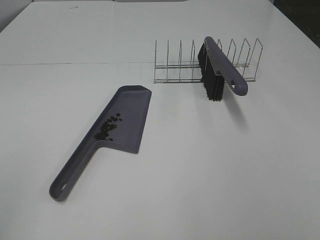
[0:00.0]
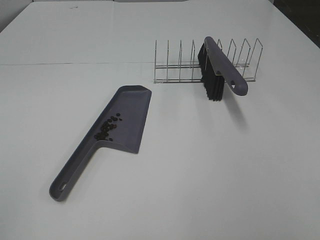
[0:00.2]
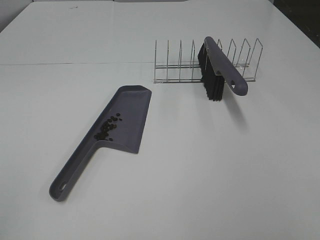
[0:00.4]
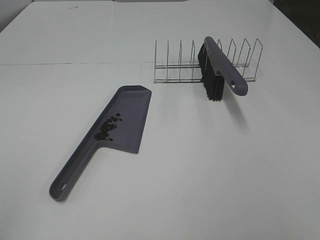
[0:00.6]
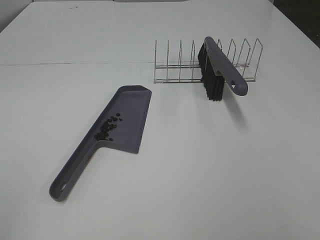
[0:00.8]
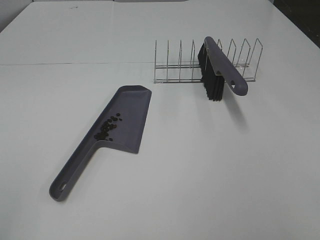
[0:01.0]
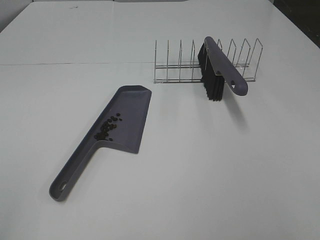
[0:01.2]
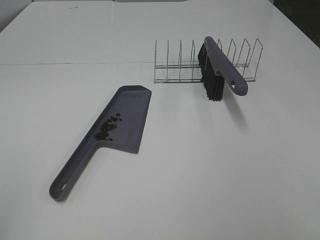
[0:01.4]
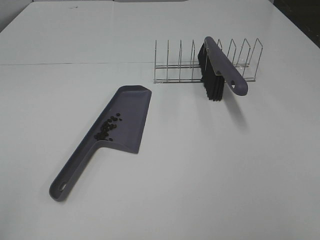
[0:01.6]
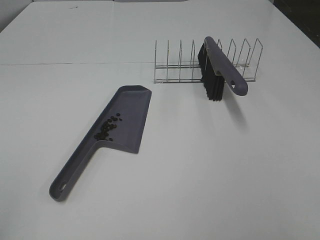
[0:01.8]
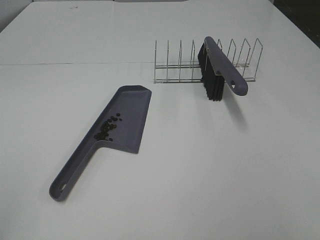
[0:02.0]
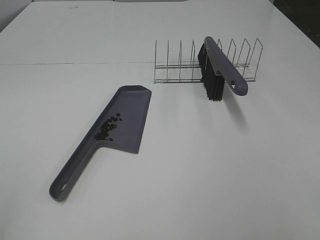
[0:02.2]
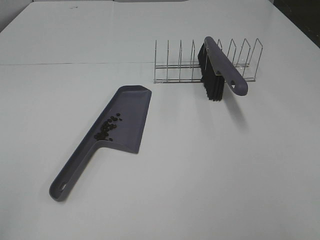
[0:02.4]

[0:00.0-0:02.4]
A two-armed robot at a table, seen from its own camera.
Task of the whole recording: Sweep Coffee Bean.
0:01.2 to 0:02.4: Neither gripper changes place.

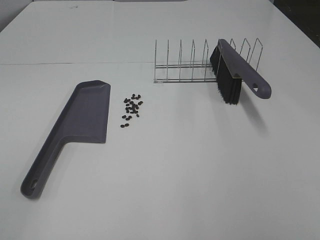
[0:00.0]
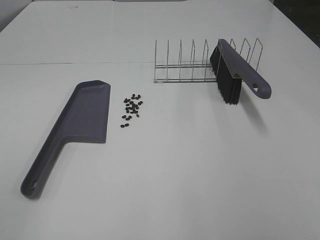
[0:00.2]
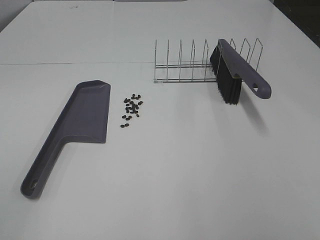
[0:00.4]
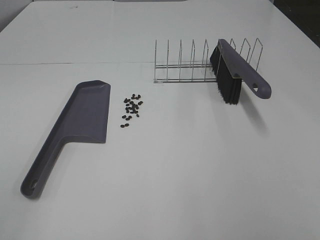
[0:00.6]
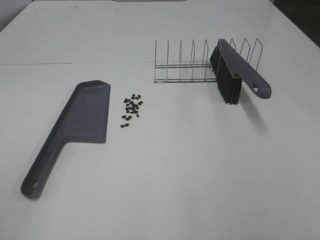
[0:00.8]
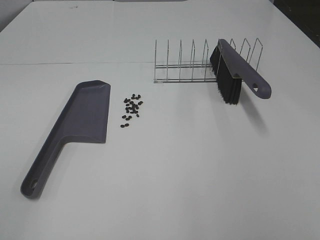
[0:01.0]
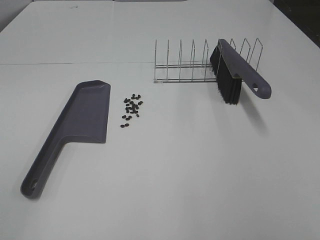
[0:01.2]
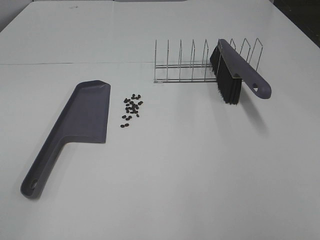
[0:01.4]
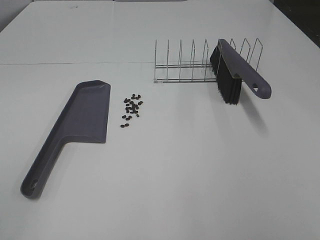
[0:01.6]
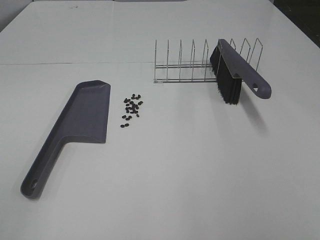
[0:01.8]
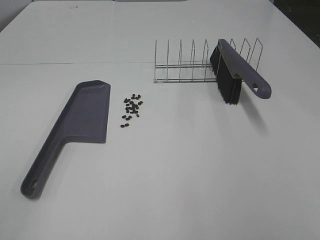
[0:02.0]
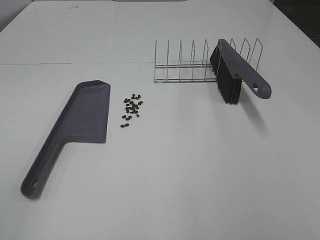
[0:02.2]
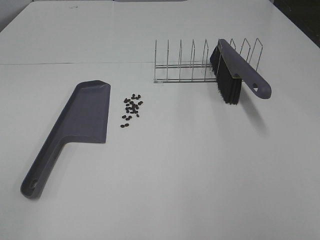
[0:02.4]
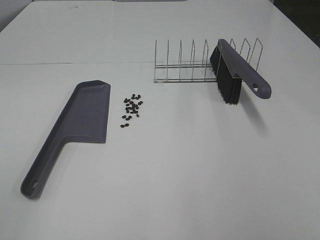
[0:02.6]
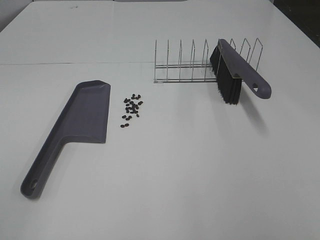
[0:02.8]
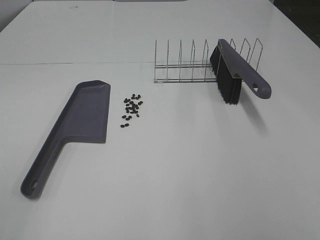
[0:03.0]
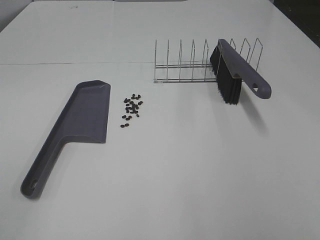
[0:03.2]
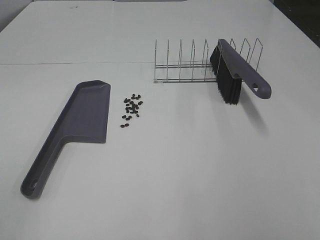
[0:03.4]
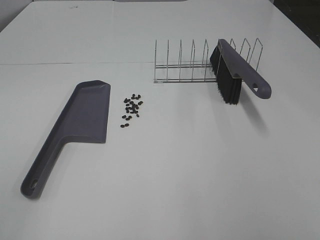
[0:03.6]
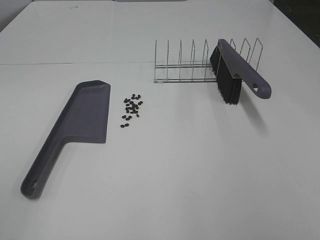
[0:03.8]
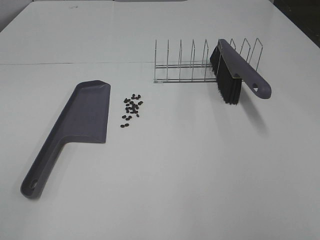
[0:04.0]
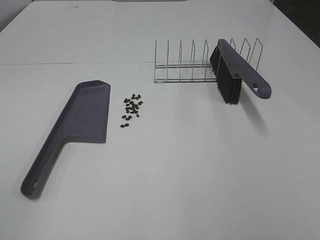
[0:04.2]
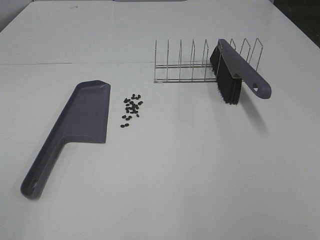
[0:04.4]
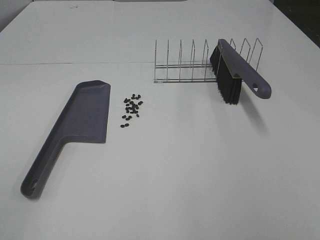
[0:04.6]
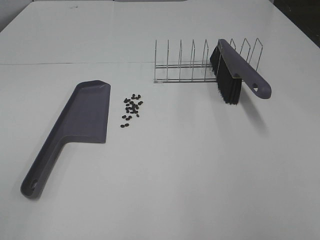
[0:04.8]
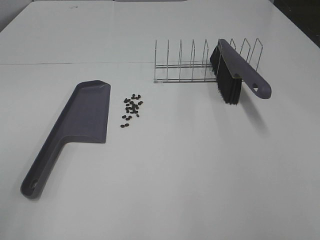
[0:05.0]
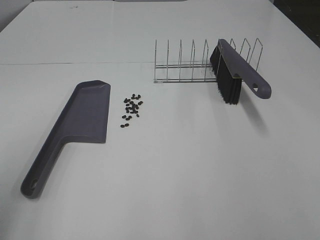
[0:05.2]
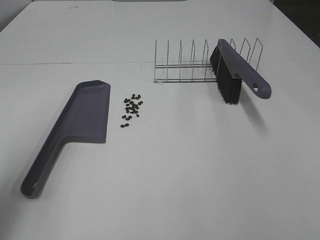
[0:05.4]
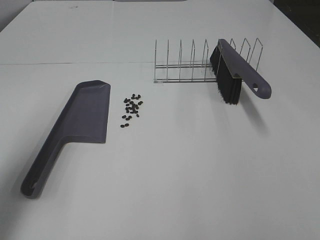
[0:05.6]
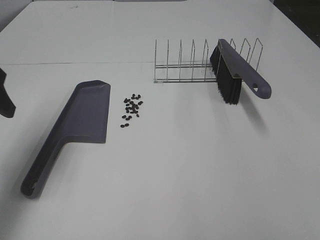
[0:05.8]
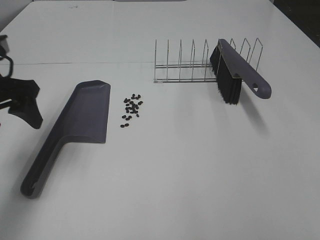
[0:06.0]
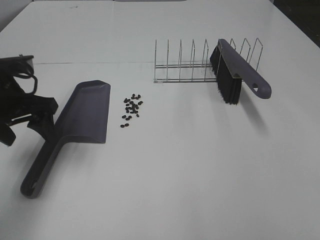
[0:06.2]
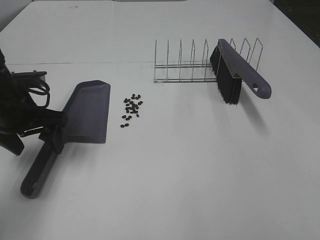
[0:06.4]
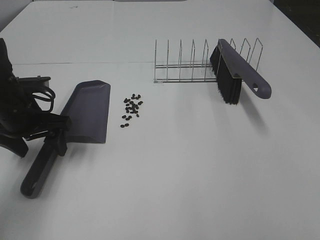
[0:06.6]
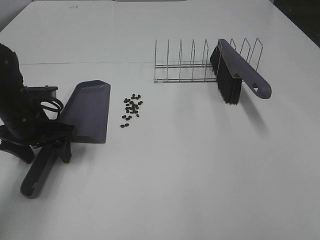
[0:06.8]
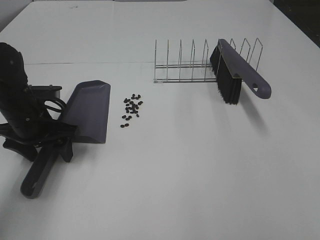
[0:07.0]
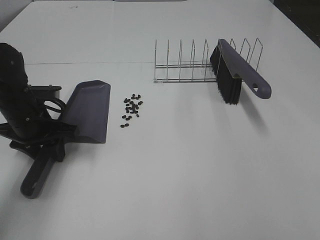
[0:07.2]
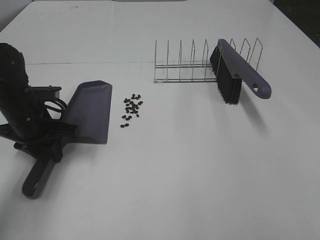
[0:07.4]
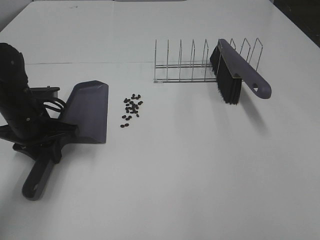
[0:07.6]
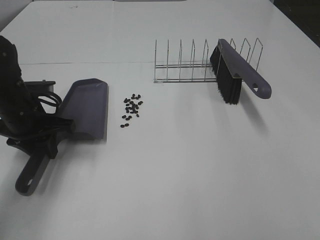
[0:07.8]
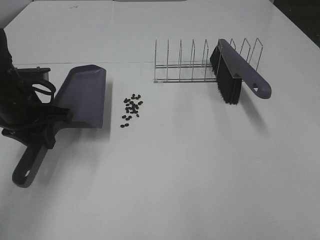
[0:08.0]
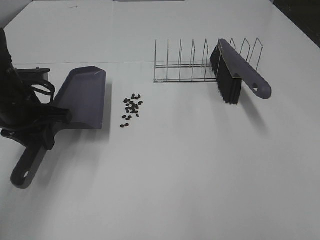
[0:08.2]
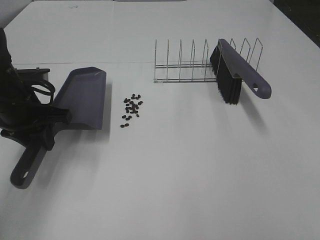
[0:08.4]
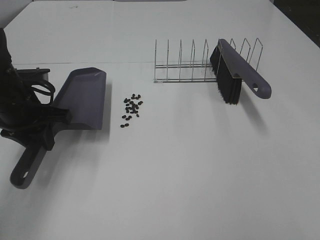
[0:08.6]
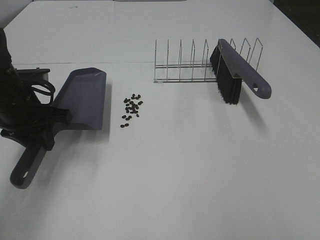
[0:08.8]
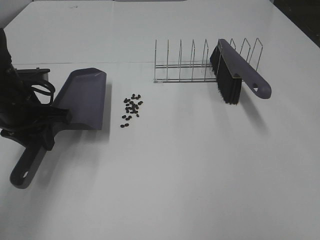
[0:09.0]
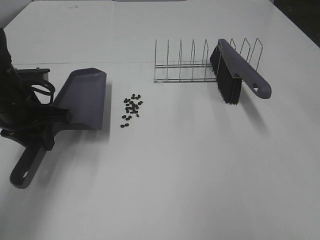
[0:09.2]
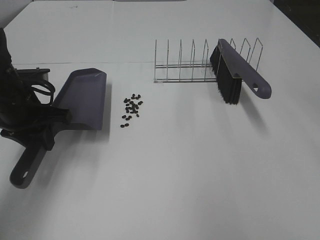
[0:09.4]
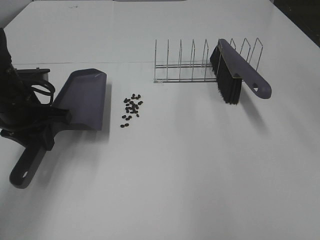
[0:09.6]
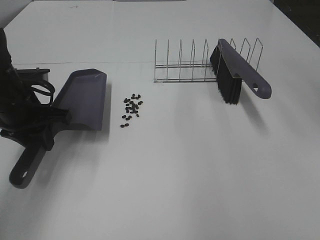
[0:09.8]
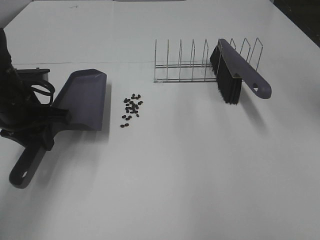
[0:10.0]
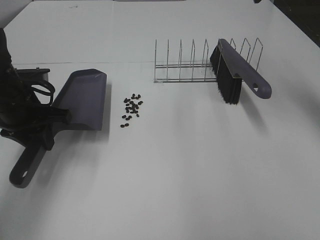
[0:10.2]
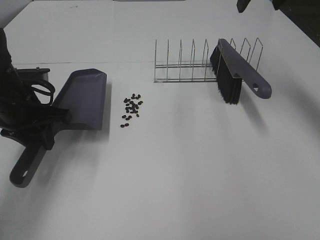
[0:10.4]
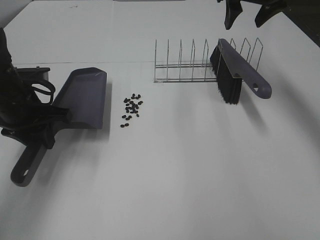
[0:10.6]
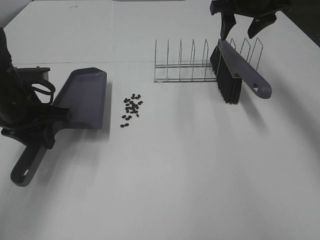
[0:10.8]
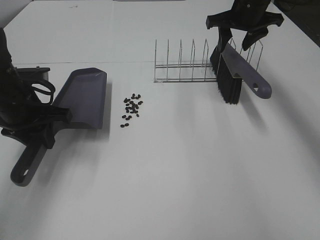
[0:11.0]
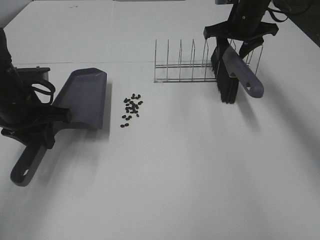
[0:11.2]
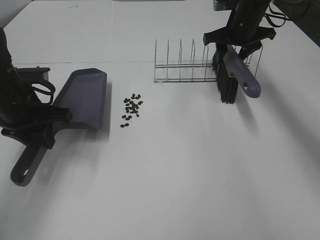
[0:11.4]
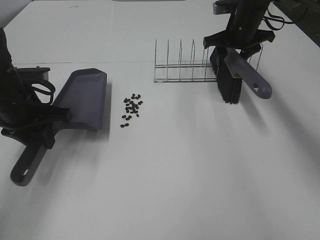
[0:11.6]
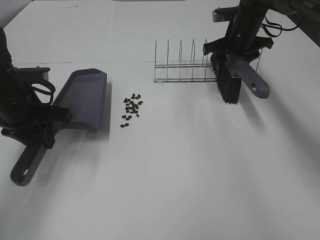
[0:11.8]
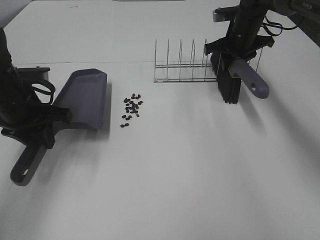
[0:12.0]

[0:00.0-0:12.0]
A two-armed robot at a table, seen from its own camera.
Task of the whole recording: Sweep Coffee Bean.
Step, 0:00.0 to 0:07.2: Left hand: grab the dustpan.
0:00.0 to 0:04.4: Both grippers stay about where they are.
0:04.4 to 0:06.0: The left gripper moves forward, roughly 30 cm.
0:06.0 to 0:07.6: The left gripper goes about 10 cm downward, and closes.
0:09.0 to 0:10.4: The right gripper heads forward, covering some 35 cm.
0:10.4 to 0:12.0: The right gripper moves downward and forward, approximately 20 cm, and closes.

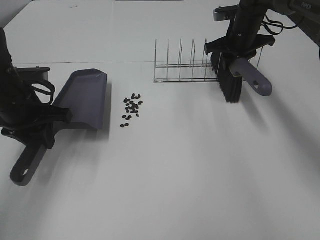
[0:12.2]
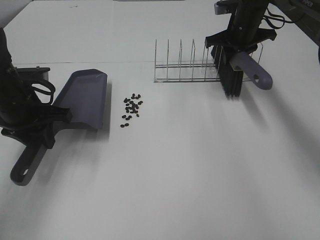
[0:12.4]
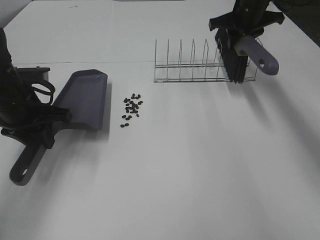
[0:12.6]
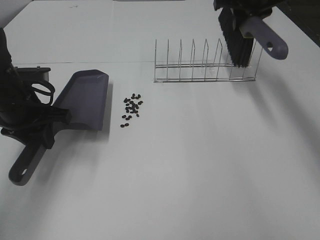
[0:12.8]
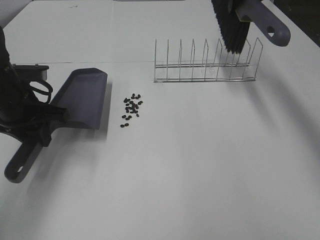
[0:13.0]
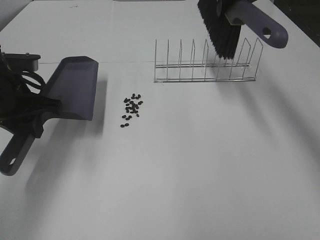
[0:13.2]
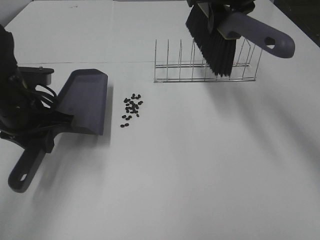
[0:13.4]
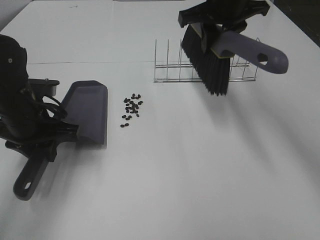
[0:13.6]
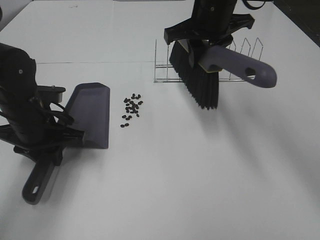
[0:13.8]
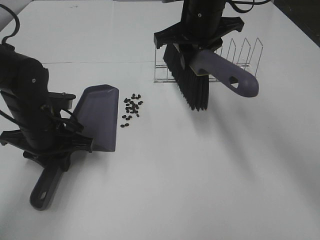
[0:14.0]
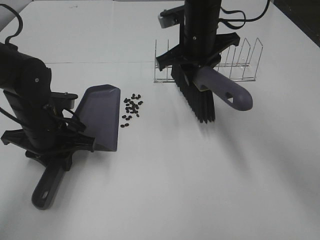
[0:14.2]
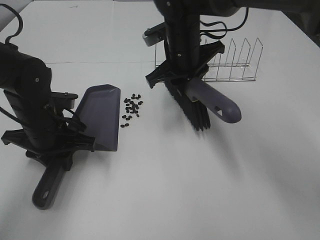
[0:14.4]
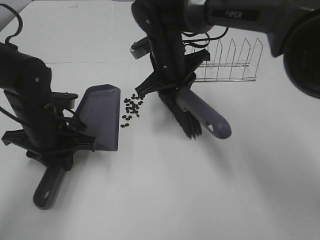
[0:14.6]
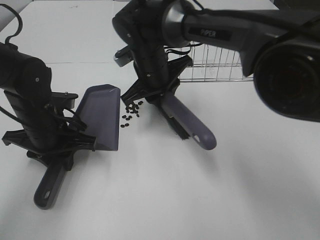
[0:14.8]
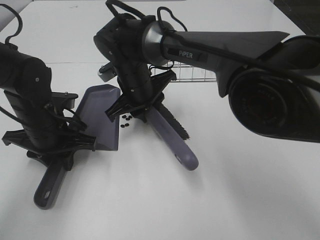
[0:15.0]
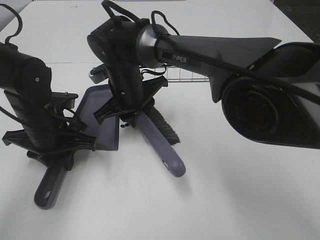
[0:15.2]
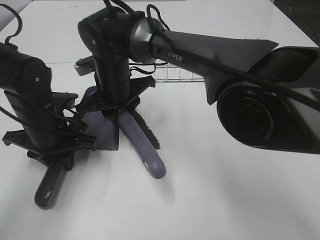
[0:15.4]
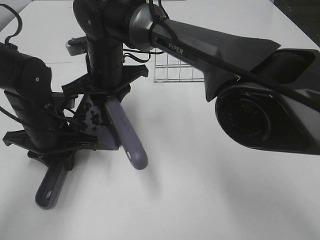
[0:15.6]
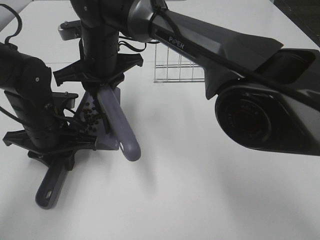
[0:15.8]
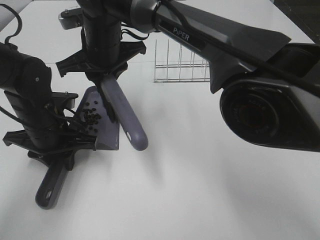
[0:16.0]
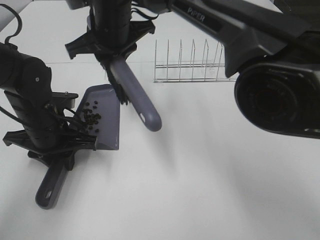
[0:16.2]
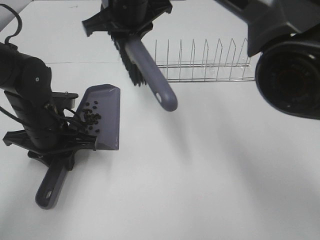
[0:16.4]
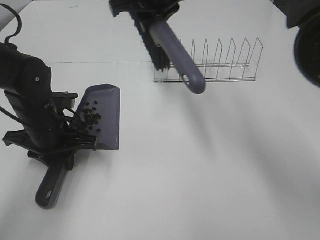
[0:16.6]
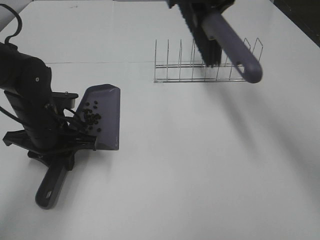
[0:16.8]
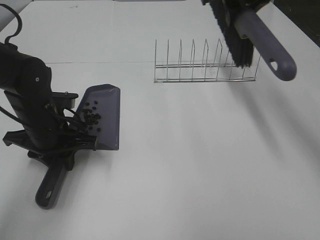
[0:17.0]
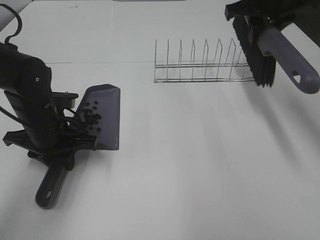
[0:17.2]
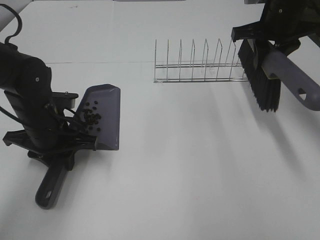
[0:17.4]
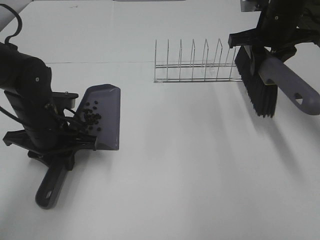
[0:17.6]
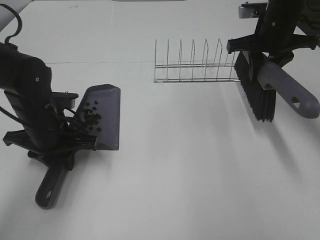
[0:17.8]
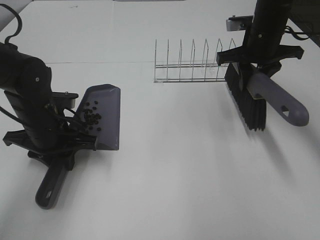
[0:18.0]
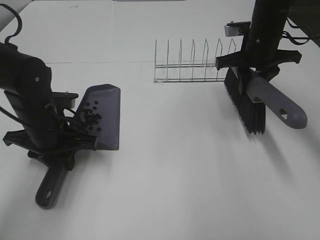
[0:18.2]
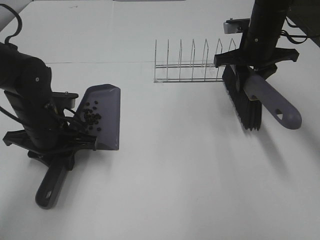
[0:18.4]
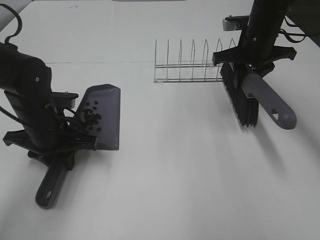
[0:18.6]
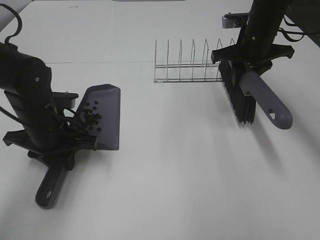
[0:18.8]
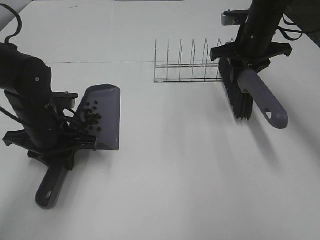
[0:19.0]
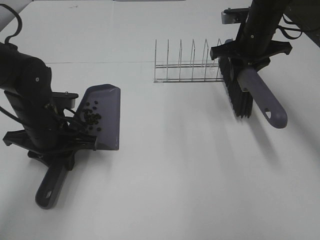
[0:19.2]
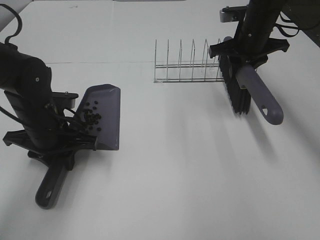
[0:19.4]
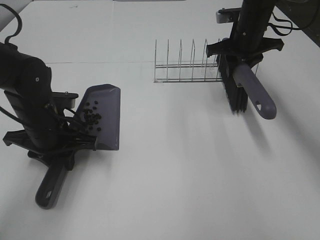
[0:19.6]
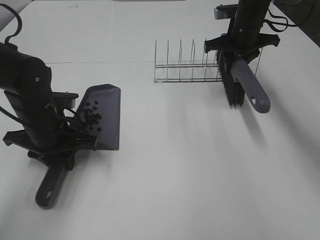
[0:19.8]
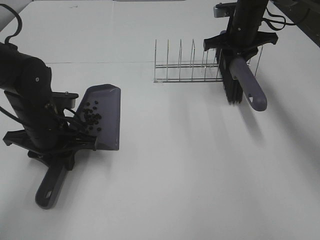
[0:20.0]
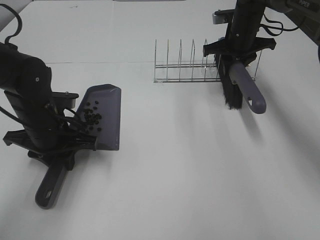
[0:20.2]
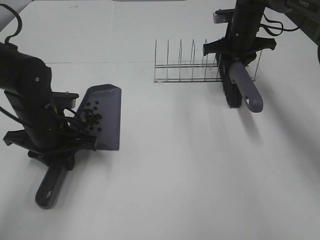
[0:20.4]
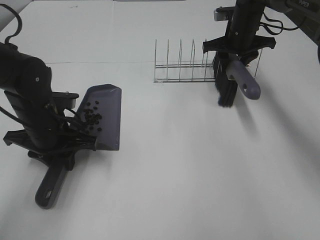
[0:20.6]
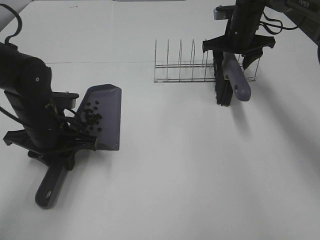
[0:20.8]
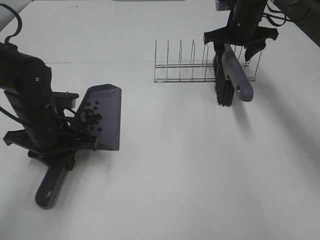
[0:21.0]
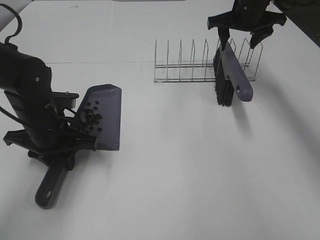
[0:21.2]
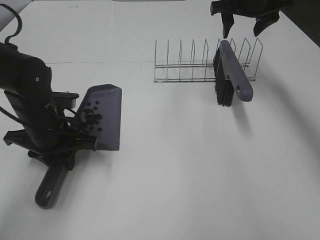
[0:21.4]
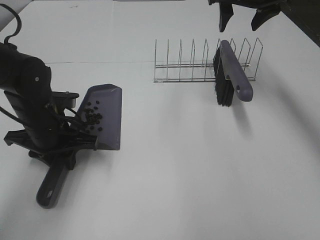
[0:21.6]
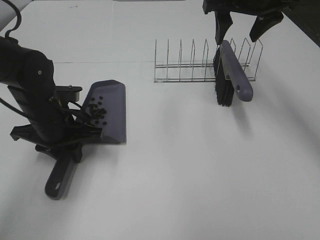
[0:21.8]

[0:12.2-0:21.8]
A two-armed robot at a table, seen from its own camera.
Task of the whole recording: Sweep Coffee Bean.
Step, 0:12.2 to 0:15.6: Right hand:sweep the coffee beans into the dustpan.
Step, 0:15.8 to 0:20.8: Right hand:place the broom on the rack.
0:12.2 to 0:13.8: The right gripper moves backward, to the left and upward, roughly 20 cm.
0:13.8 to 0:15.4: The right gripper shifts some 20 cm to the left and downward.
0:15.4 to 0:17.0: The right gripper is displaced to the right and upward by roughly 30 cm.
0:17.0 to 0:18.6: The right gripper goes some 10 cm downward.
0:18.6 to 0:20.2: The right gripper heads forward, covering about 5 cm.
0:20.2 to 0:21.8: The right gripper goes about 15 cm upward and backward, and opens.
